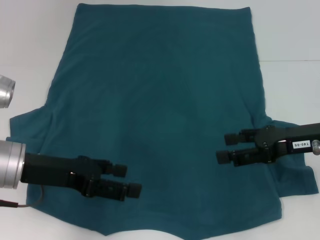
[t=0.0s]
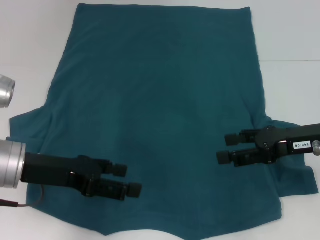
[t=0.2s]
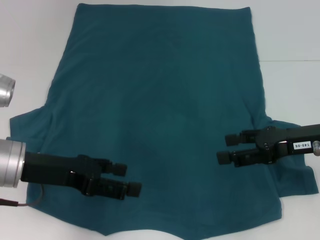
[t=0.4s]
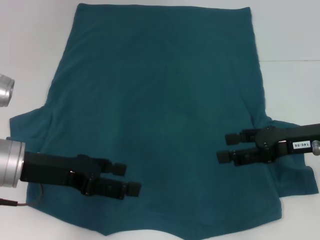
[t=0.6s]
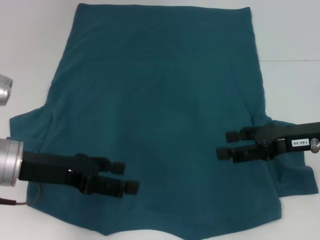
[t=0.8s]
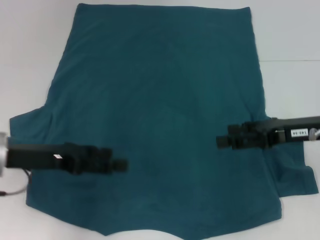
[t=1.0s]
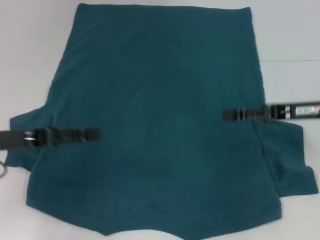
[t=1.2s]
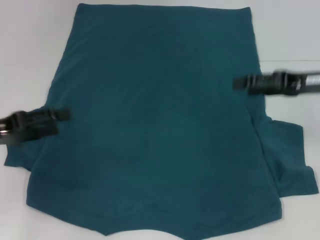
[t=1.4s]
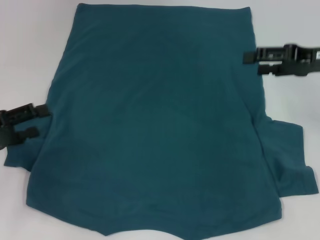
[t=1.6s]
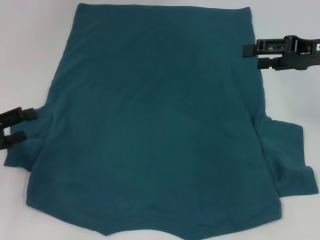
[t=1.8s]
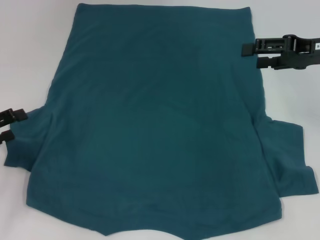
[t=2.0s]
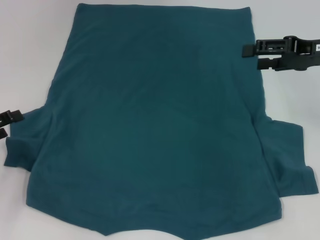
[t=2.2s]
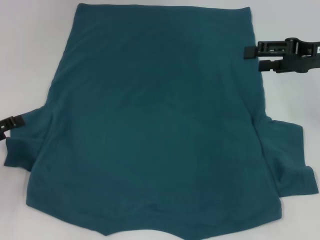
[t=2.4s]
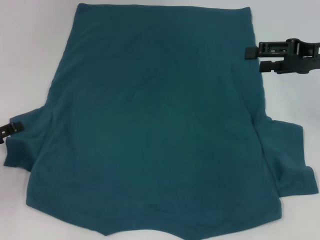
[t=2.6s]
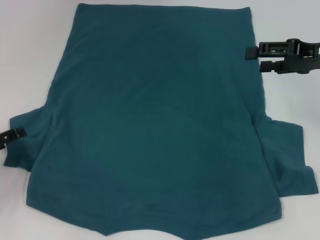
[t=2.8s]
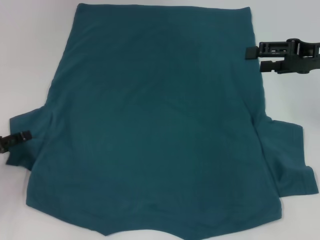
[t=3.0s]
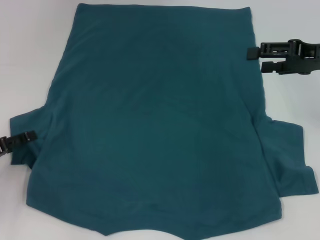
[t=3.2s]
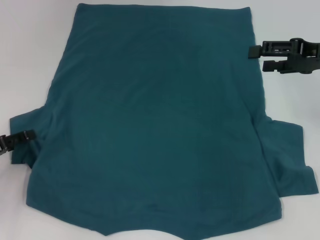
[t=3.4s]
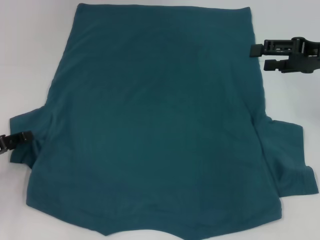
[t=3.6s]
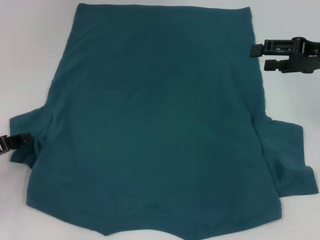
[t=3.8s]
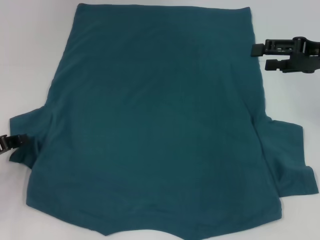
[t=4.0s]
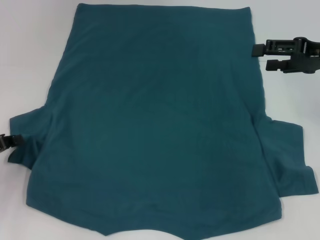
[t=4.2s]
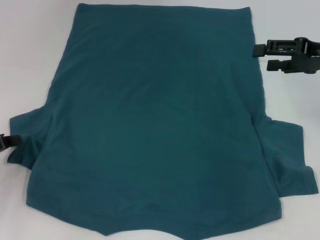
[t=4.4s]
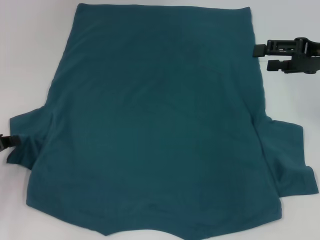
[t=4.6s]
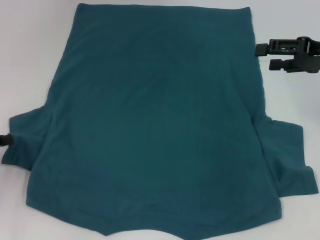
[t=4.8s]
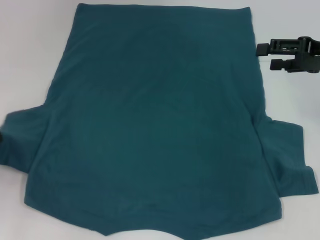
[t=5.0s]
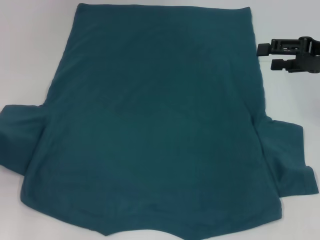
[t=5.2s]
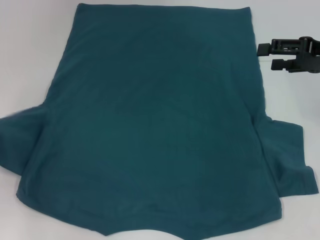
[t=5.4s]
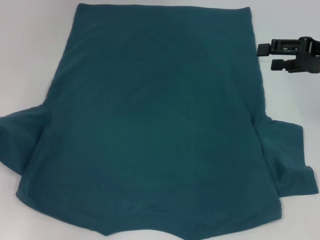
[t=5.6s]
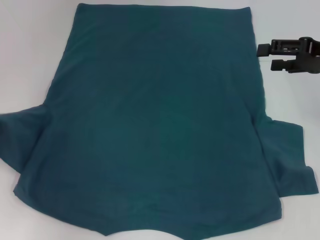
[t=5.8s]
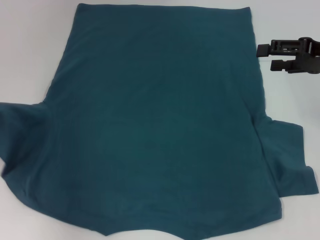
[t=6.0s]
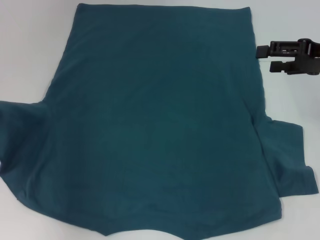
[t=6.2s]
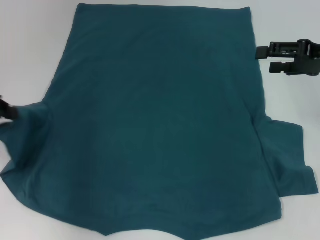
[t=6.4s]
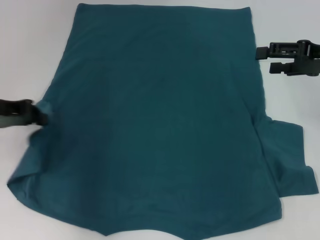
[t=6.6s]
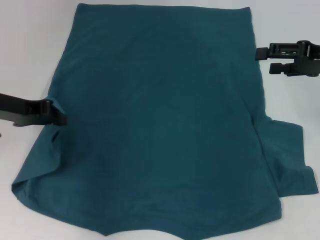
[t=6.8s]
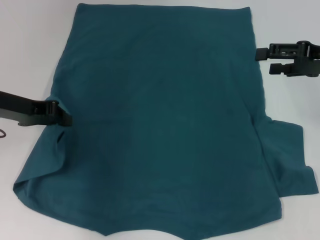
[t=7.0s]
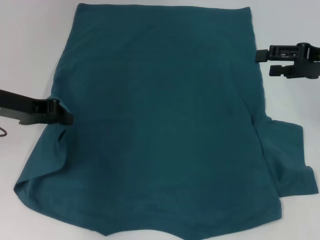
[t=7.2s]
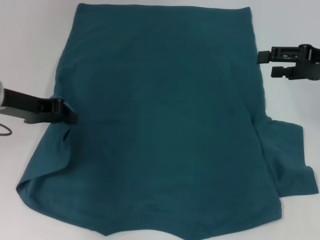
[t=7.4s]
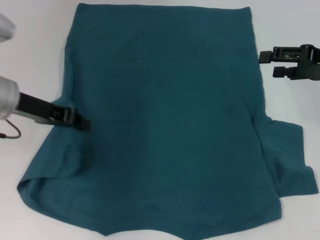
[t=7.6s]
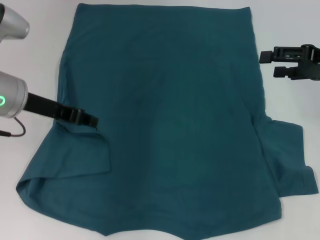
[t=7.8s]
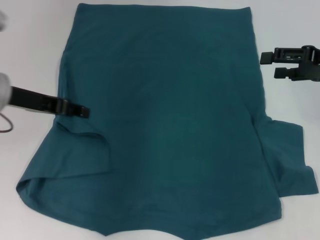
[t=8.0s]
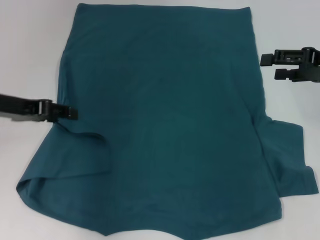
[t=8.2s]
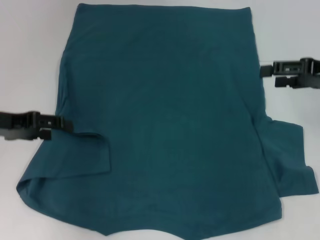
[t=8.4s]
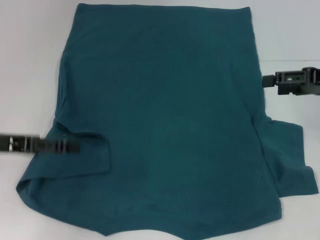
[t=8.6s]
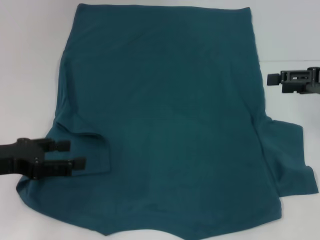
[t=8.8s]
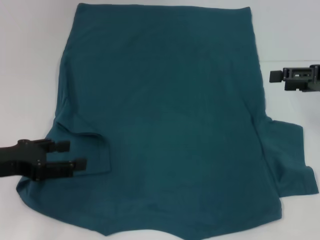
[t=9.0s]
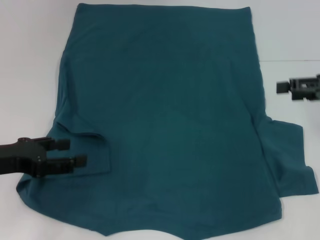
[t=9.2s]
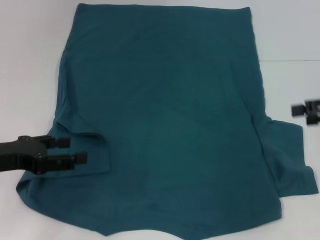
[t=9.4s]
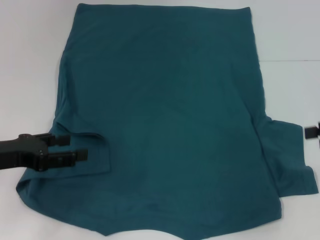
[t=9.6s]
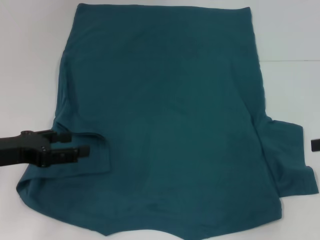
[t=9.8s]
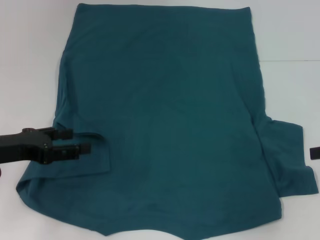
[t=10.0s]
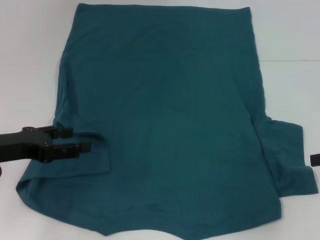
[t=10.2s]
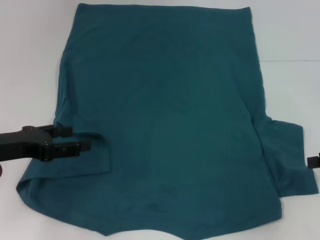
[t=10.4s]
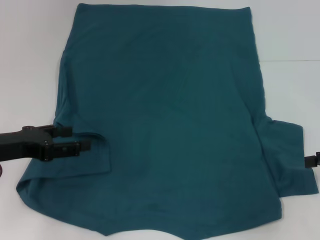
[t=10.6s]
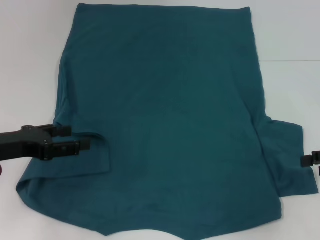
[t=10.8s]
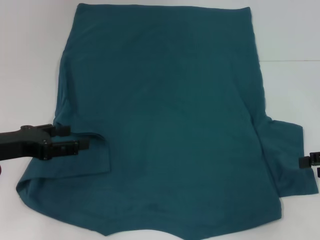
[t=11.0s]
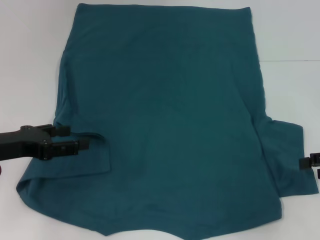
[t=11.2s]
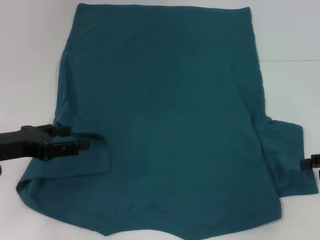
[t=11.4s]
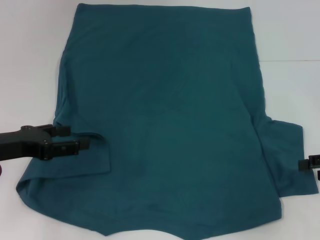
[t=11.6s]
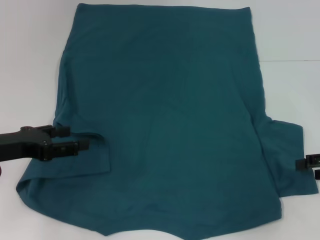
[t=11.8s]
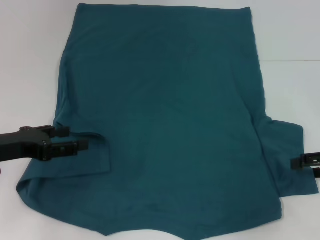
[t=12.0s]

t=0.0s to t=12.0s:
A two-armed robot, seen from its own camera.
Step, t=0.0s to t=8.2s: Fold the bottom left sleeve with your left hand.
t=0.0s to t=1.6s: The right gripper shifts some 10 cm forward and upward. The left gripper moves to the left, about 10 cm.
t=1.6s to t=3.0s: The left gripper is displaced downward by roughly 5 cm.
t=4.4s to t=6.0s: The left gripper moves upward, roughly 10 cm.
t=6.0s to t=7.6s: The left gripper shifts about 15 cm to the right.
t=7.6s to t=9.0s: The left gripper moves backward and to the left, some 10 cm, and opens its fingers.
t=9.0s to t=10.4s: The right gripper heads backward and to the right, covering about 10 cm.

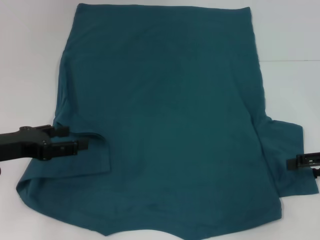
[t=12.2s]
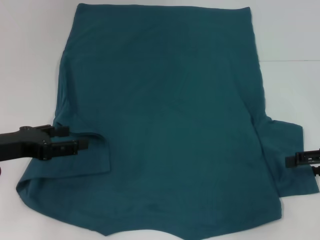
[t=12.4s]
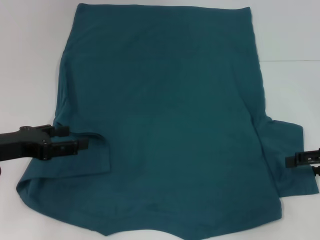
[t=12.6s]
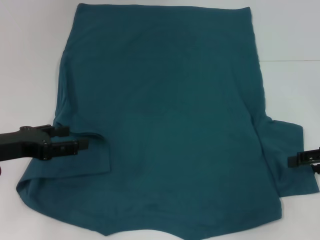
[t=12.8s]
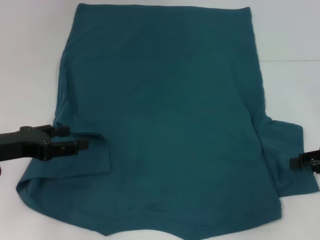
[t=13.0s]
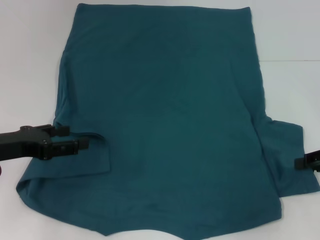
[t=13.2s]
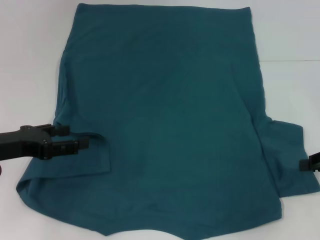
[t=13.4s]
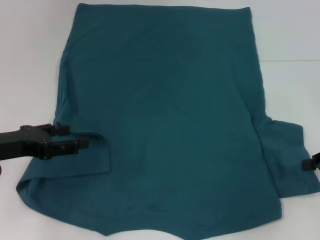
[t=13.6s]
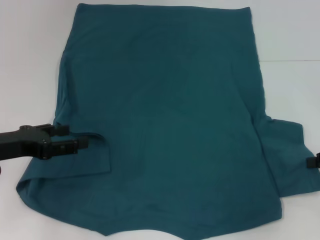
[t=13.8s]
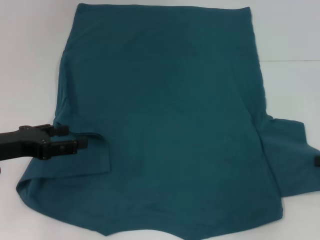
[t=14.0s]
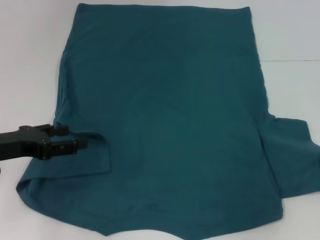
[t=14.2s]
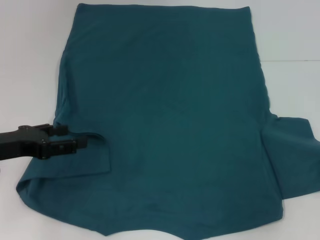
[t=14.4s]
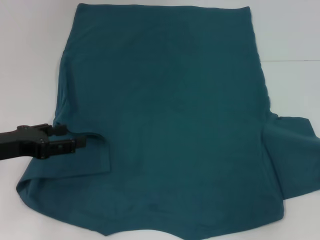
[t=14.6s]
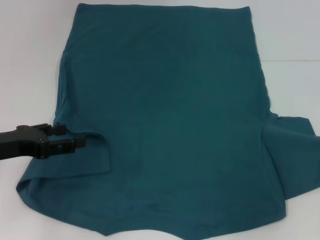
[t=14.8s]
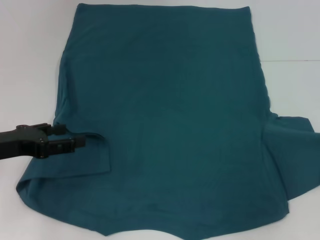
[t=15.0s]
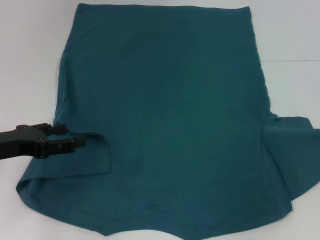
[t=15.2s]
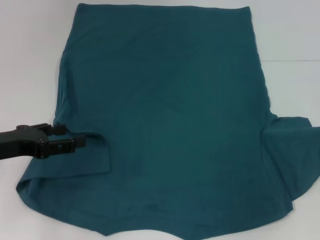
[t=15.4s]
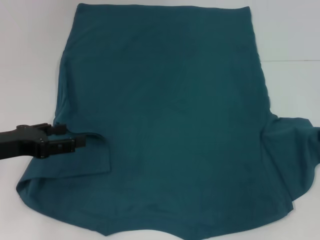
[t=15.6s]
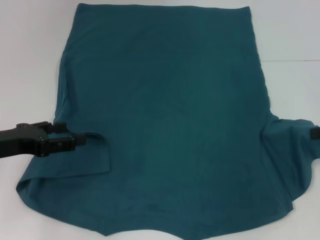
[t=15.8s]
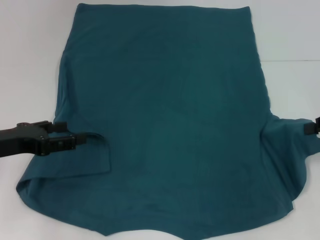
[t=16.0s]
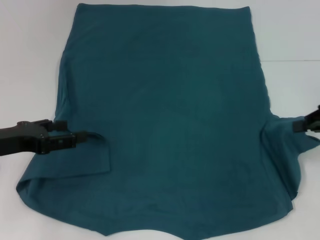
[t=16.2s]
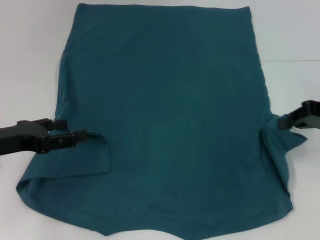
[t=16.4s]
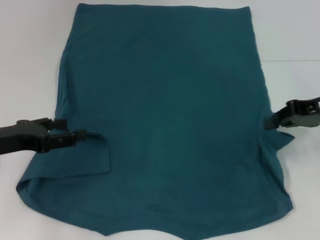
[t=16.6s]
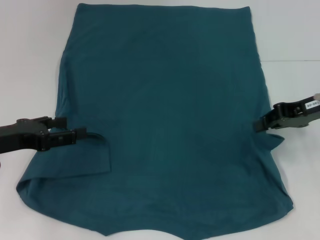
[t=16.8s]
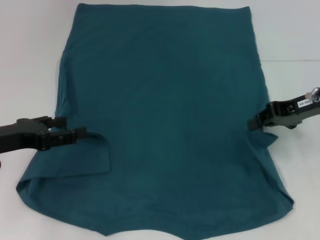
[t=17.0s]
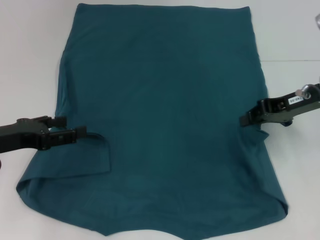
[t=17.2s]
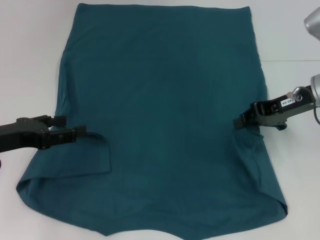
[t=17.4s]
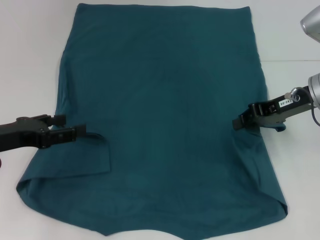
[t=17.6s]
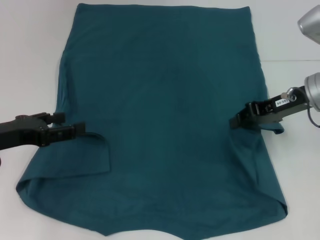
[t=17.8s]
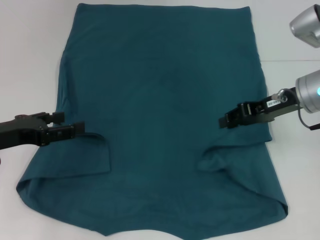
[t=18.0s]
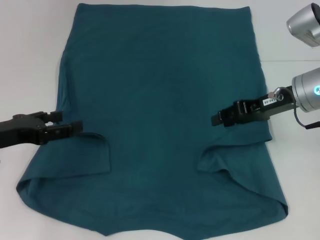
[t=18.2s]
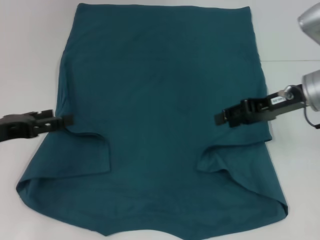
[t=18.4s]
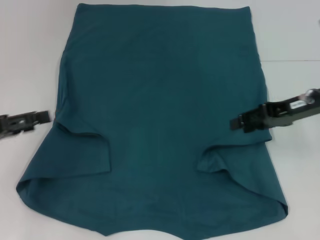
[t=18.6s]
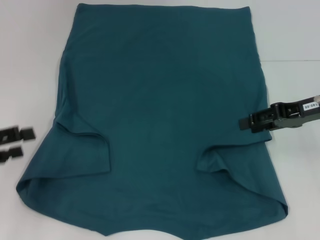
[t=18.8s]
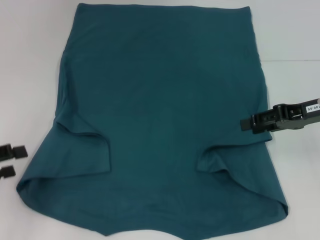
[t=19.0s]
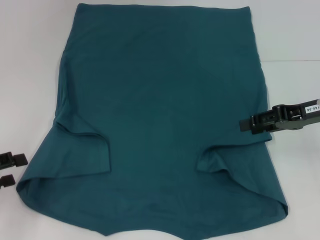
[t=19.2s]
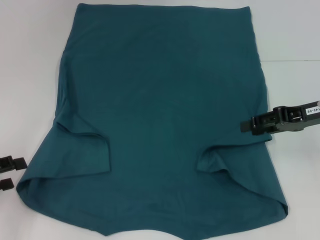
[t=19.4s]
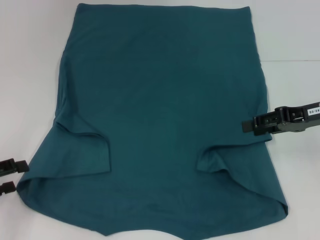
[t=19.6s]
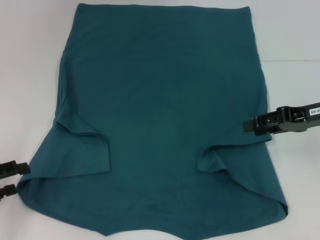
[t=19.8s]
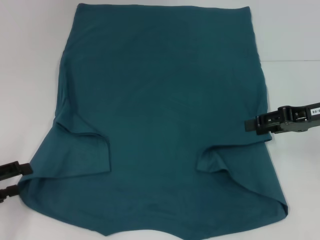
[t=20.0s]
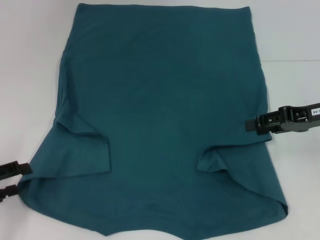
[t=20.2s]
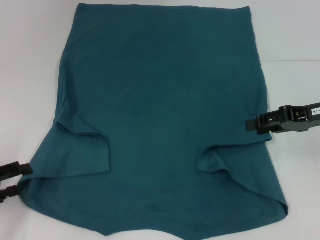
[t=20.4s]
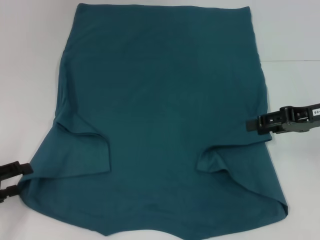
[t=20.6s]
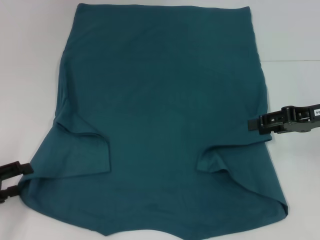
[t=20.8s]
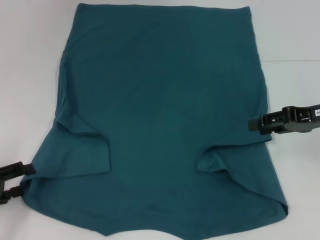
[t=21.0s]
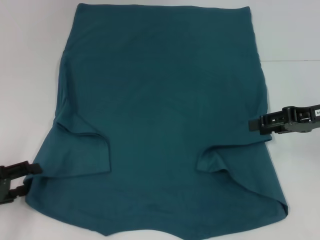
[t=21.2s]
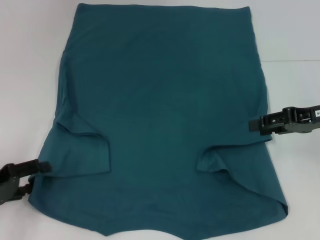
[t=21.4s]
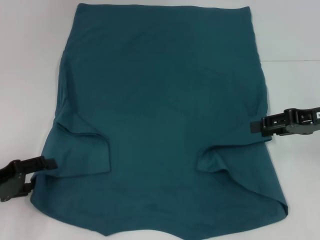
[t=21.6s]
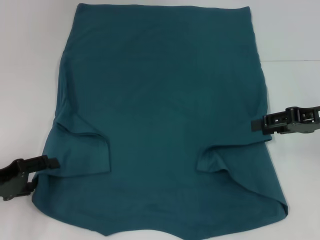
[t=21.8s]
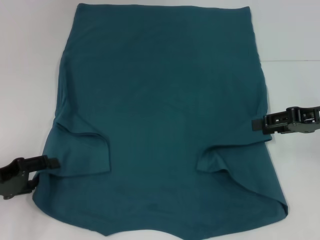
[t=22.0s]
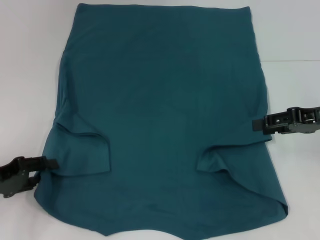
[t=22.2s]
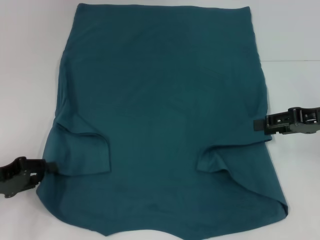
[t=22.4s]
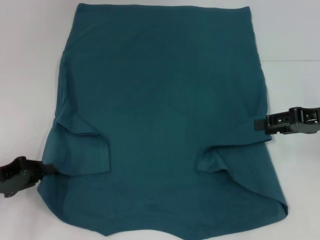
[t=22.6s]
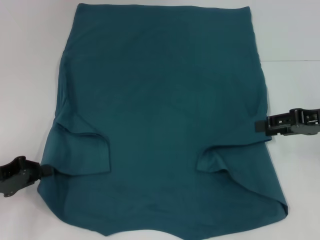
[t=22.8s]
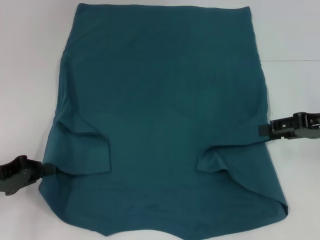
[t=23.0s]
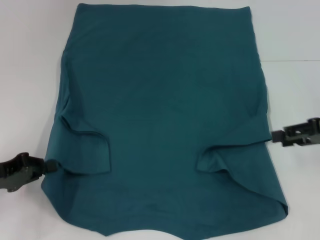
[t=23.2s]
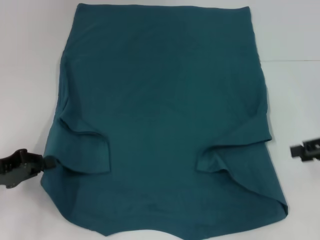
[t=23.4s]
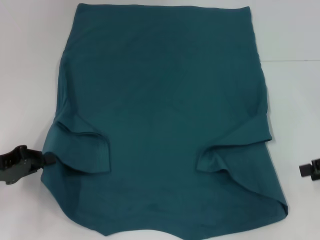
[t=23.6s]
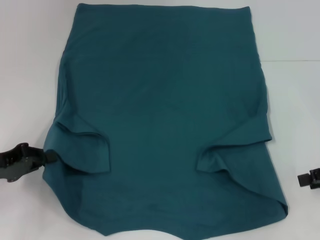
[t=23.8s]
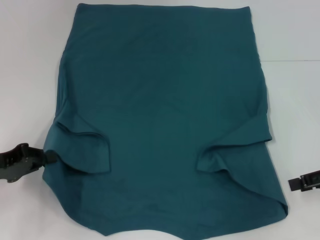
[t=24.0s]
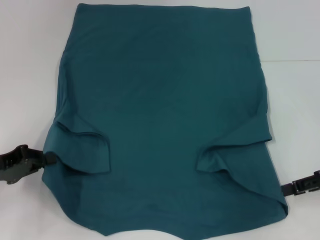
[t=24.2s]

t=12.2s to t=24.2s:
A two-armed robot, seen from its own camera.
Step, t=12.2s to t=18.6s: Fold the bottom right sleeve to the right.
Step, t=18.8s to t=23.0s: Grab the bottom left corner with your left hand.
t=12.2s to t=13.8s: The right gripper closes its fingers.
t=13.8s to t=15.2s: There are only small adjustments of the grippers.
t=15.2s to t=16.6s: The right gripper moves to the left, approximately 10 cm.
t=16.6s to t=18.2s: The right gripper travels to the left by about 5 cm.
t=18.2s to t=19.8s: The right gripper travels to the right by roughly 5 cm, and opens, while the left gripper travels to the left and backward by about 10 cm.
t=19.8s to t=21.2s: The grippers move only a little.
t=21.2s to t=22.6s: The left gripper closes.
t=22.6s to t=24.2s: The right gripper changes place by some 5 cm. Meanwhile the left gripper closes its fingers.
